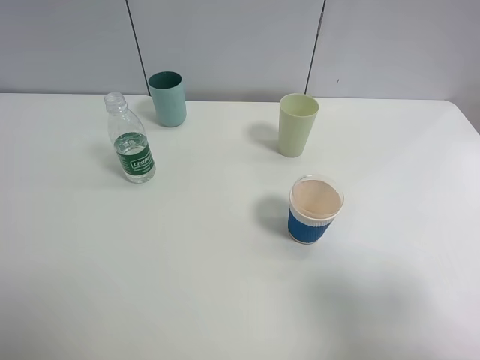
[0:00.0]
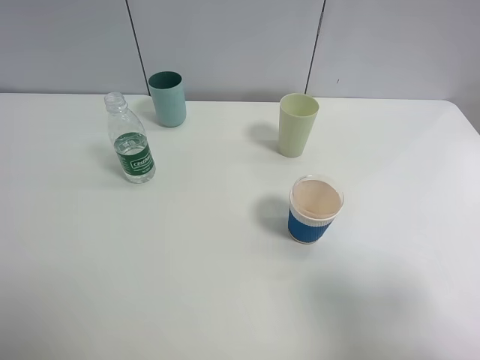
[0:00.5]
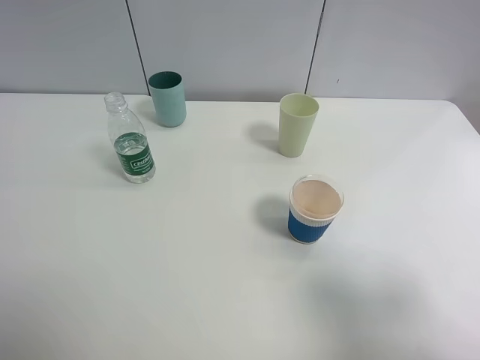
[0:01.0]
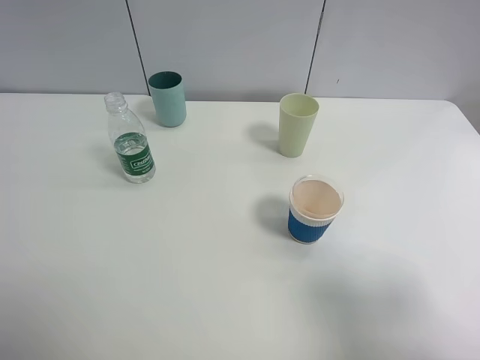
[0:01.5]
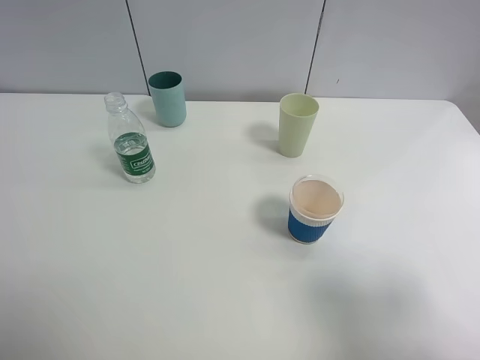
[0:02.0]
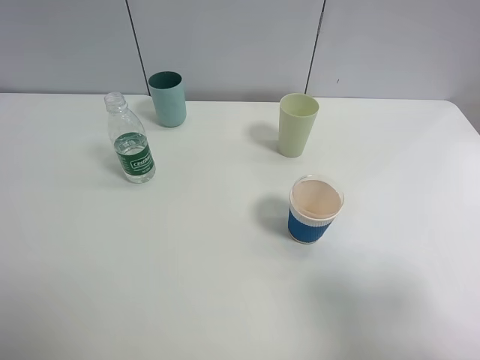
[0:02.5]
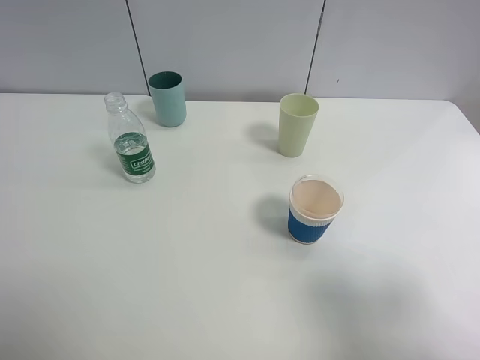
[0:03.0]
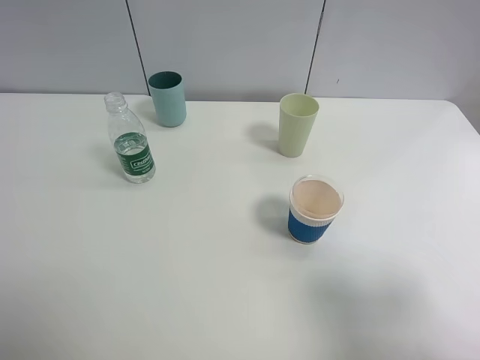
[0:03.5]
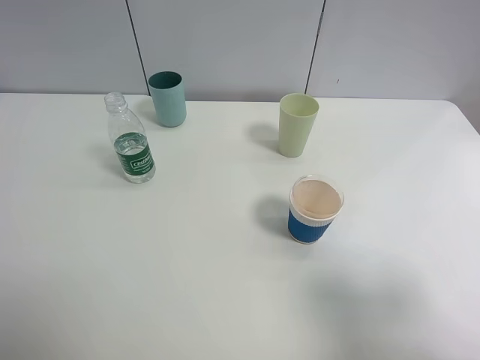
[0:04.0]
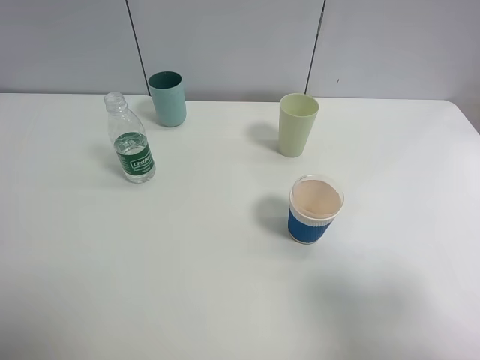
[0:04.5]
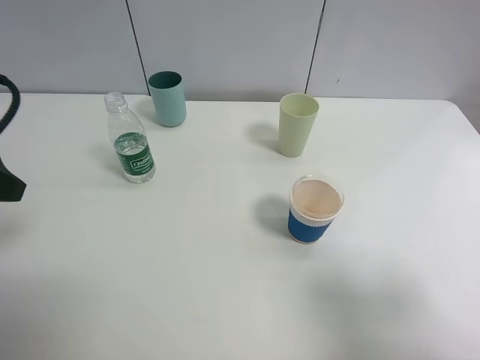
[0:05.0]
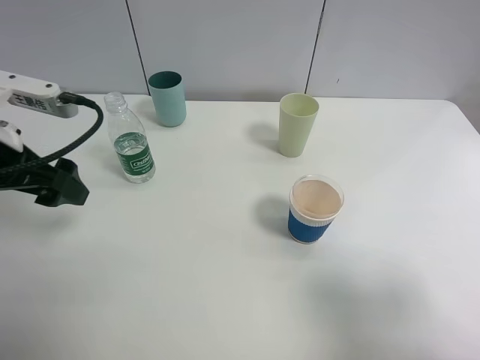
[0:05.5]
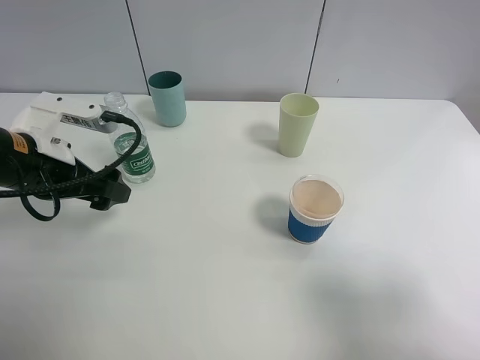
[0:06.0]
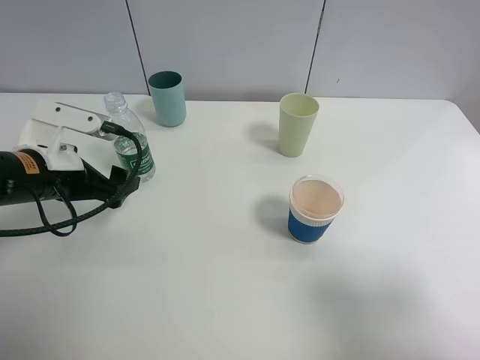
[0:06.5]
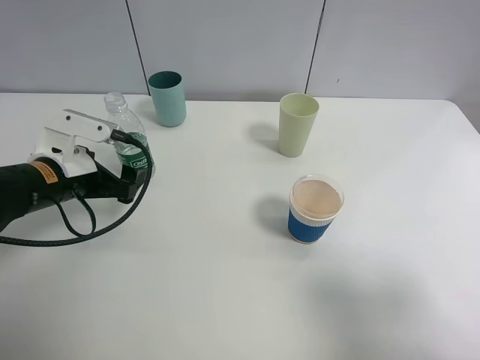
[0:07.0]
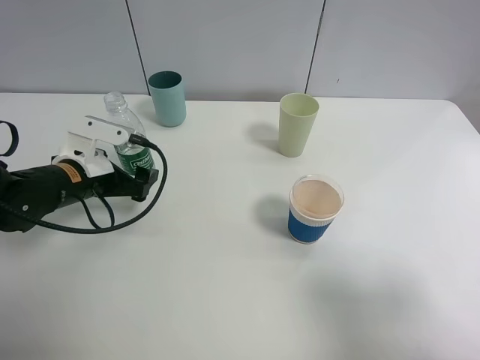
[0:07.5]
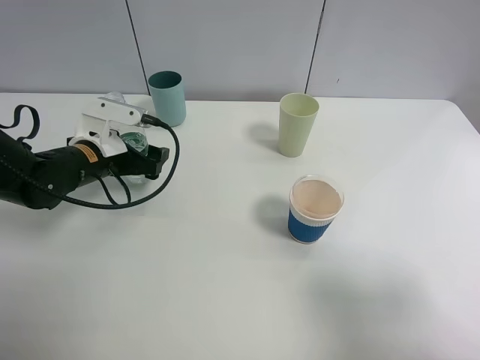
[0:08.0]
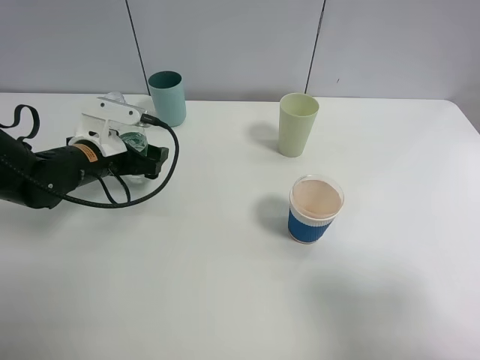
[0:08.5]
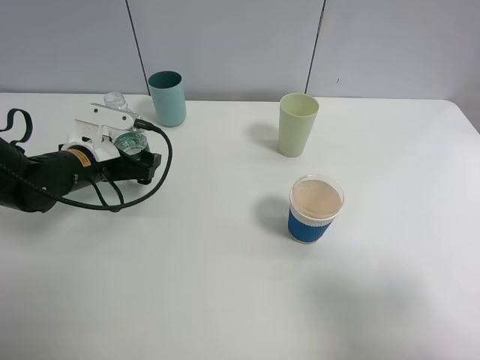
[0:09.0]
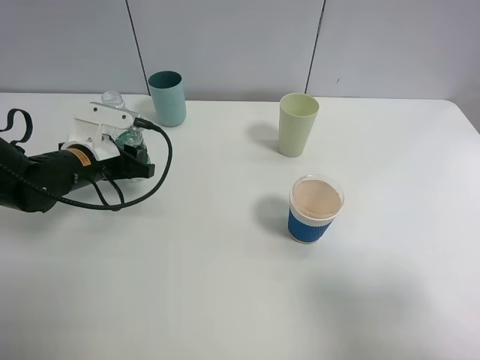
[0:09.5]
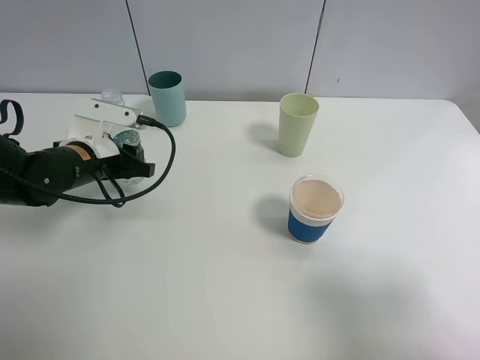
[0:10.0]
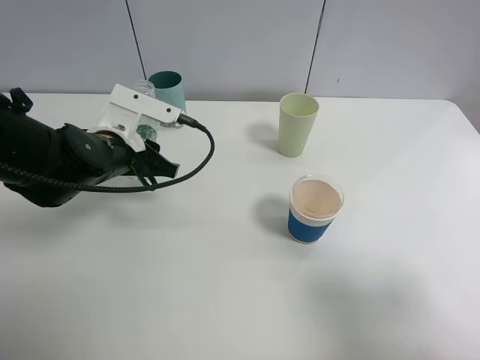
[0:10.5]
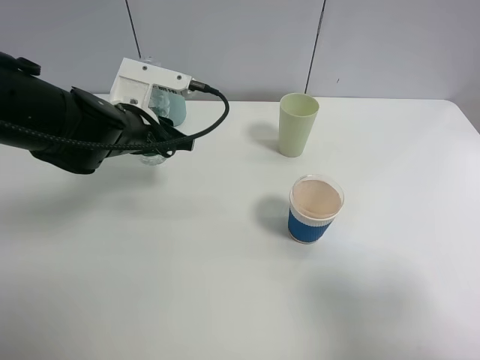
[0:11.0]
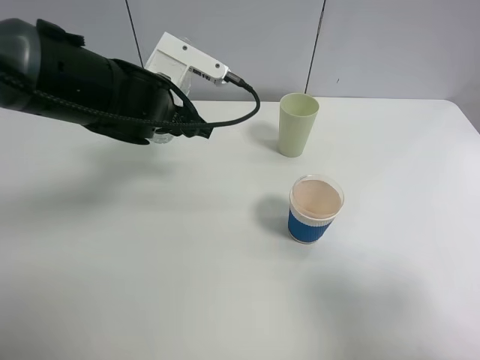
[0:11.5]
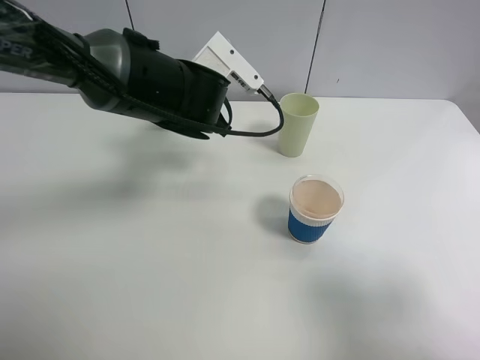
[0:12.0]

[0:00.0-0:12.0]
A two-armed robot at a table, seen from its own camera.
Task of the whole recording: use a clamp to hold the bottle of the drink, pour the beverage into a random cup, then clamp the cup containing the drink and pour the drink into another random cup.
Step, 0:00.0 to 0:10.5: Pick up the water bottle with left gripper.
0:00.0 to 0:02.0: Both grippers stay about where they are.
0:04.0 to 0:06.0: The left gripper shifts approximately 25 cm forward and downward.
0:06.0 to 0:08.0: The left gripper is displaced forward and downward by some 10 cm.
0:08.0 to 0:10.0: The left gripper closes up.
0:10.0 to 0:12.0: The left gripper shifts roughly 15 cm to the right and upward.

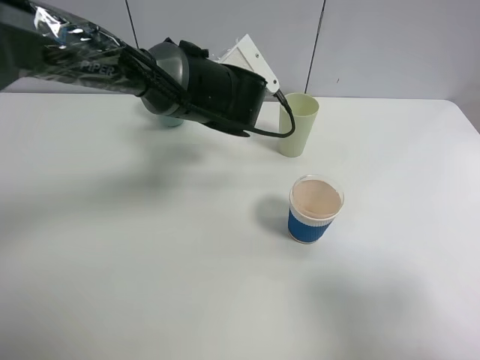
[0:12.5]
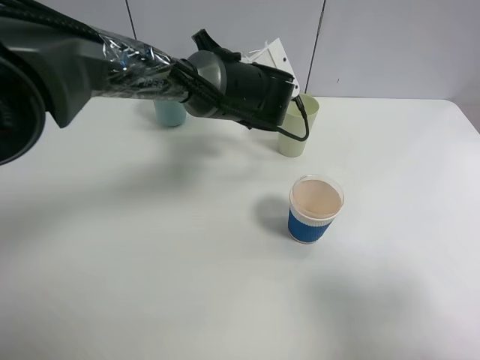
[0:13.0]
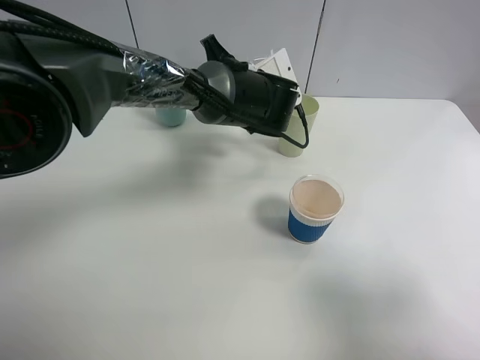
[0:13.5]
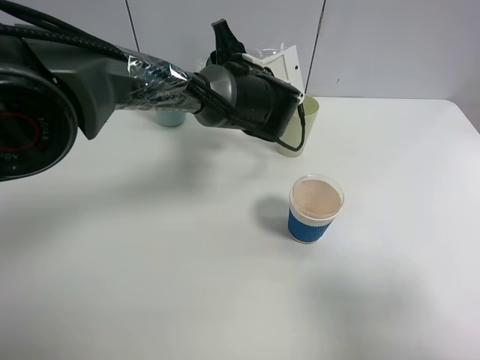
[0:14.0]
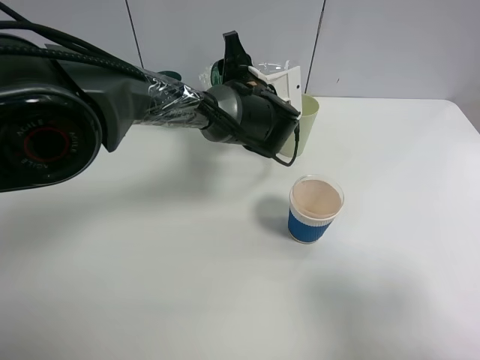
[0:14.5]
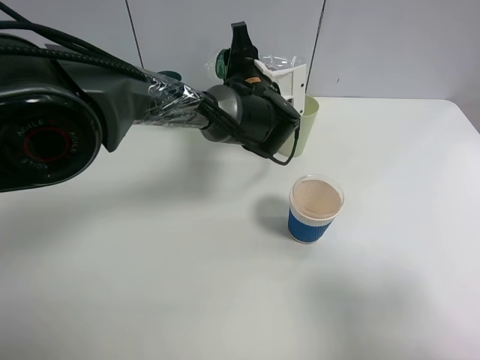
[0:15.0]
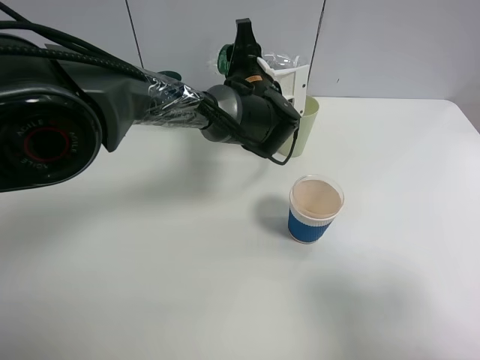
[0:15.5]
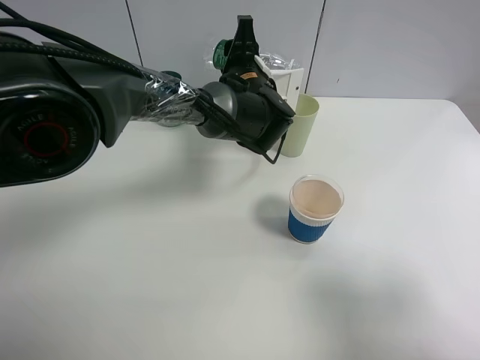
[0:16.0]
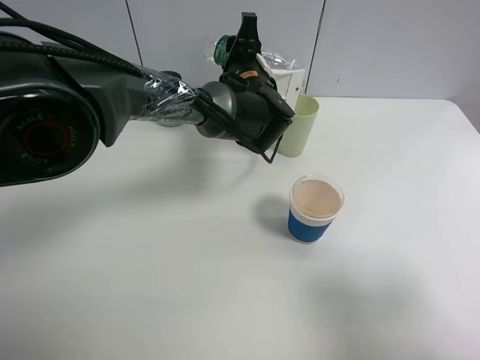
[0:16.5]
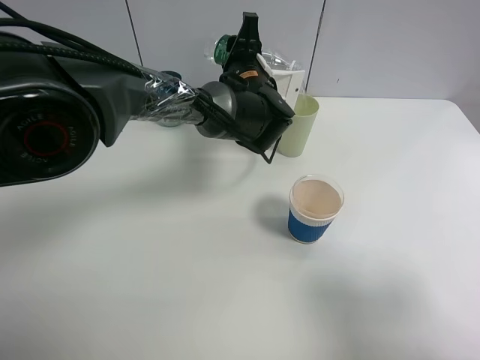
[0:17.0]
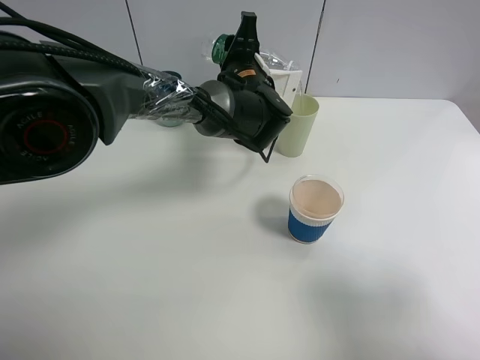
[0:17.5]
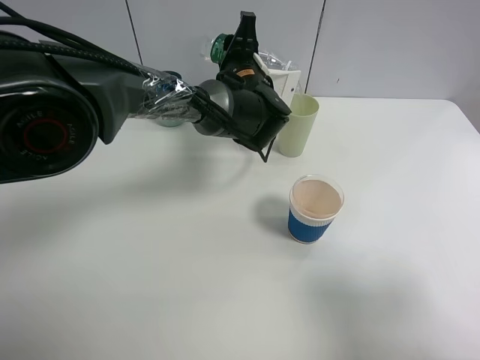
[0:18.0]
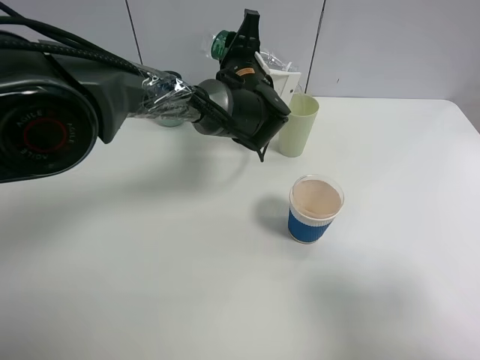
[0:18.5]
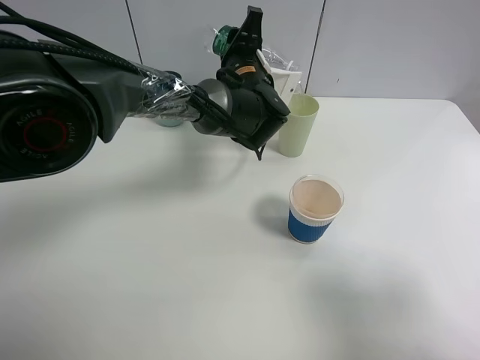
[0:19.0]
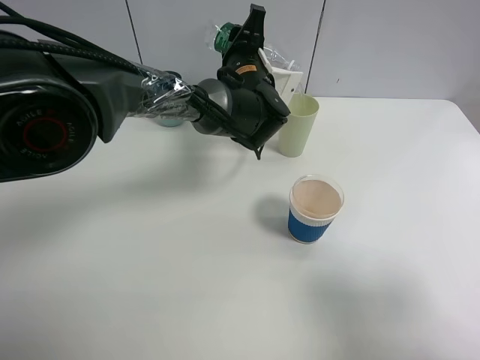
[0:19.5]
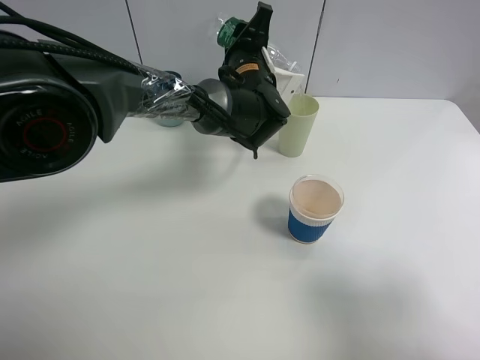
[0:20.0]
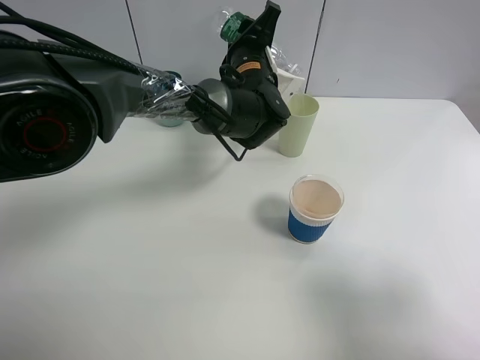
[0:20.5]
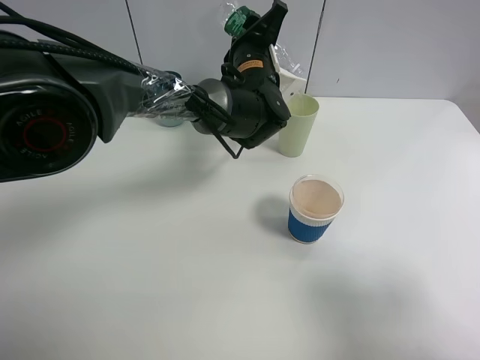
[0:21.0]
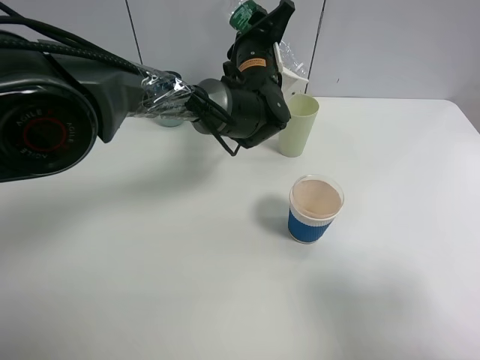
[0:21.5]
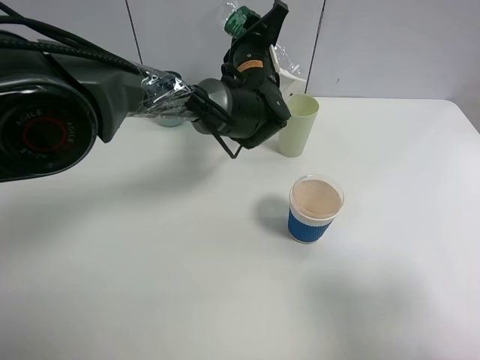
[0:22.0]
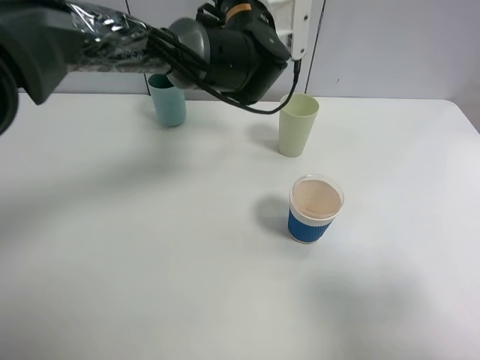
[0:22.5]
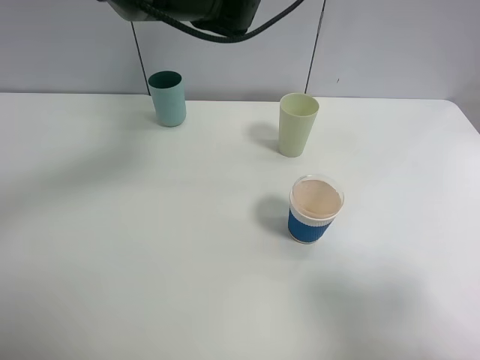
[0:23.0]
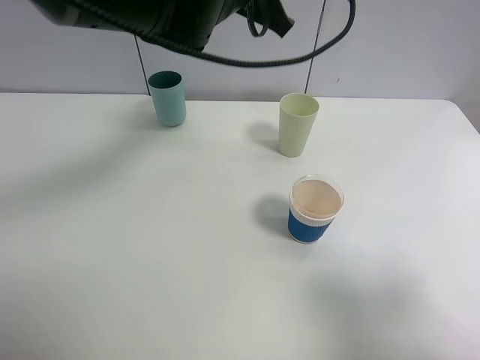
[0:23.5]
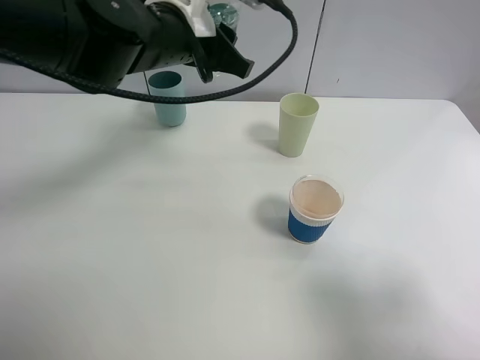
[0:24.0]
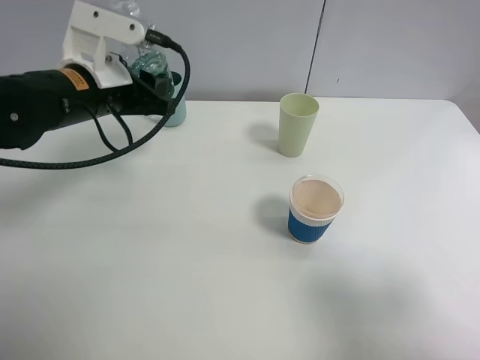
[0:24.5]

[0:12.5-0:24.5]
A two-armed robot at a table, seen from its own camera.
Task of the whole recording: use a clamp to hold the bottle of the drink, pour the beverage into a random cup, then clamp the cup containing the drink and pour the drink into another random cup.
Step, 0:12.5 to 0:22.0: Pour the water into the green plastic cup with left gripper.
0:12.5 to 0:14.5: The left gripper moves some 5 cm.
0:14.5 to 0:16.5: The grippers stay close to where they were, moving slightly.
0:16.5 to 0:18.5: The grippers move only a little.
0:18.5 to 0:20.5: The grippers make only small movements.
0:20.5 to 0:22.5: The left gripper goes roughly 10 cm upward.
0:22.5 to 0:24.5: The left gripper travels to the left and backward by approximately 20 cm.

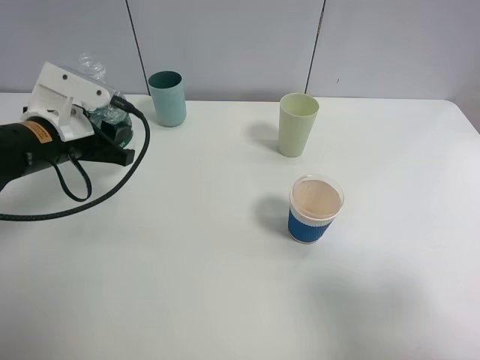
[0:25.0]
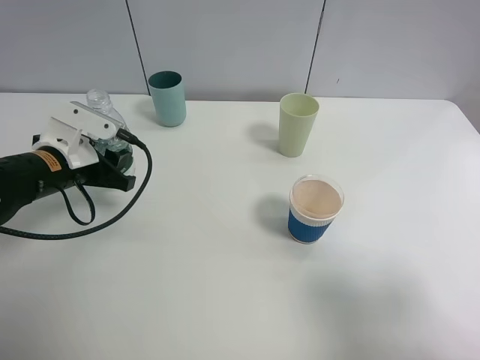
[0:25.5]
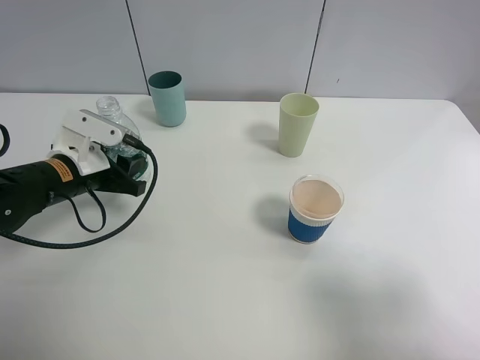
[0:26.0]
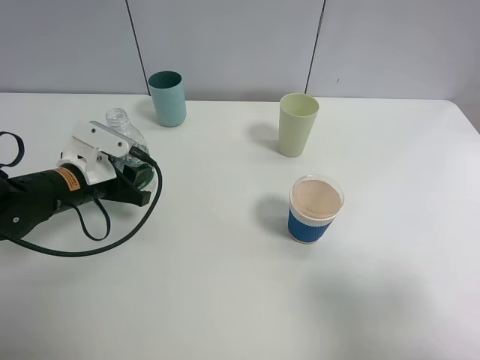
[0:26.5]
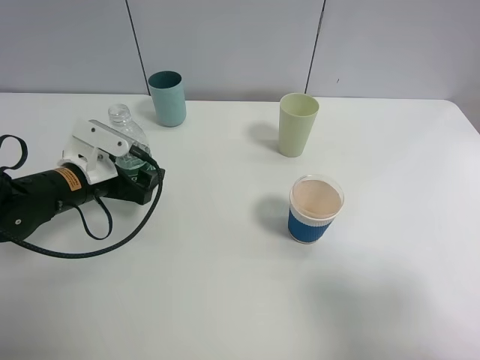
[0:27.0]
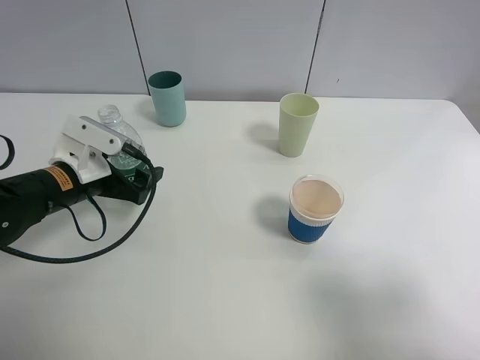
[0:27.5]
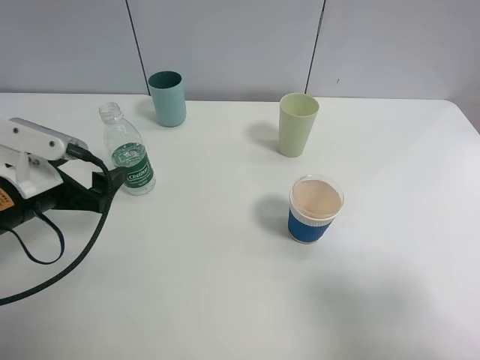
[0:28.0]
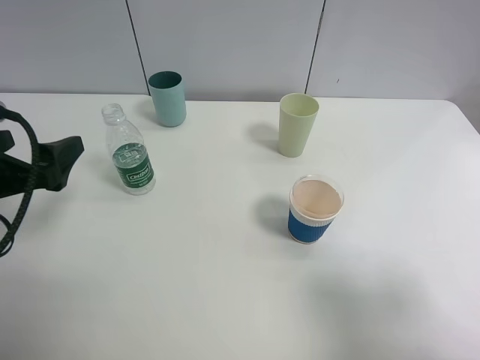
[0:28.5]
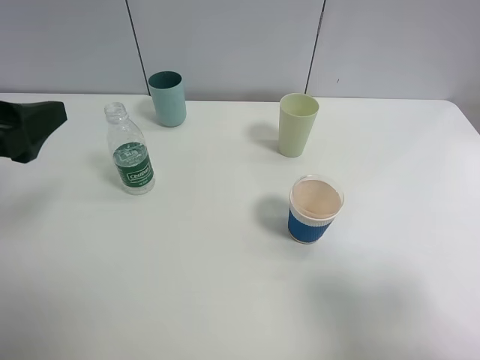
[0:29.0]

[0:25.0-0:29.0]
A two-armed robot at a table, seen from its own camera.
Task of the whole recording: use a clamp to hold the bottle of the drink, pour the beverage into a random cup, then clamp the cup containing the drink and pour the drink into another random cup.
Step, 0:25.0 to 0:27.5: Place the water bottle on the table with left gripper.
0:25.0 to 0:27.0: The left gripper moves downward, approximately 5 cm, and opens up.
0:27.0 to 0:29.0: The left gripper shifts some 20 cm upward and backward.
